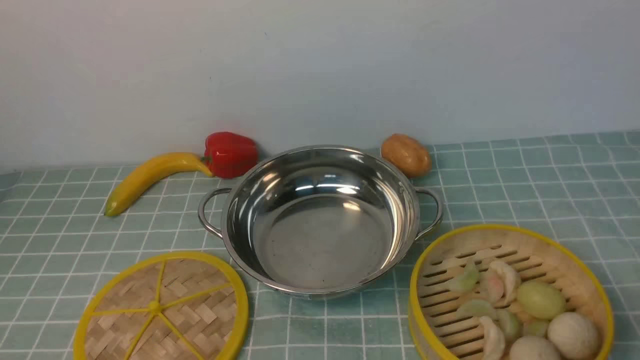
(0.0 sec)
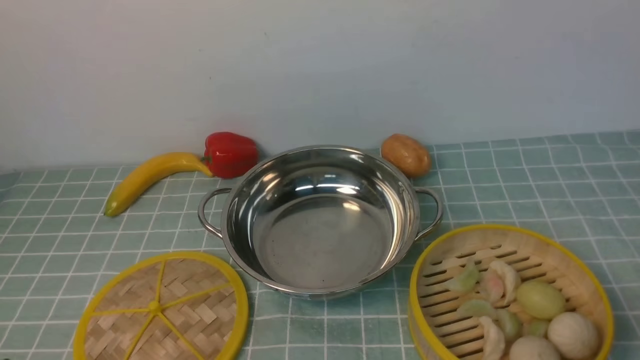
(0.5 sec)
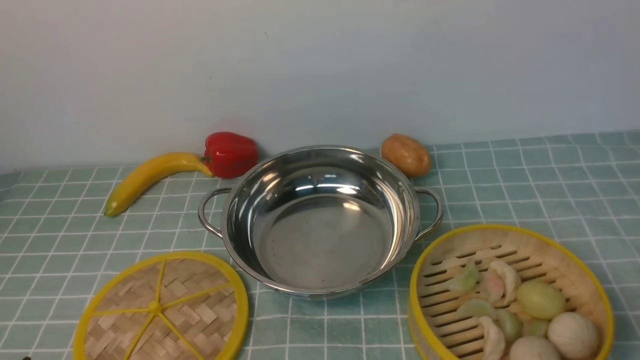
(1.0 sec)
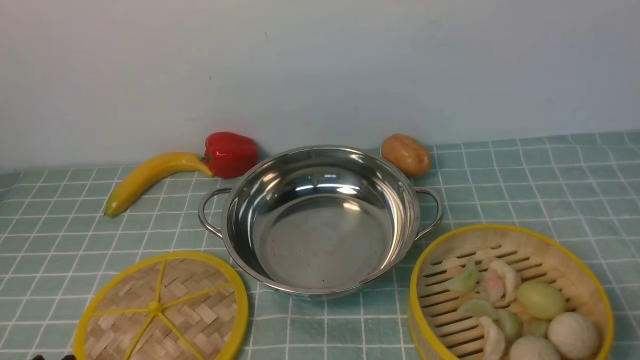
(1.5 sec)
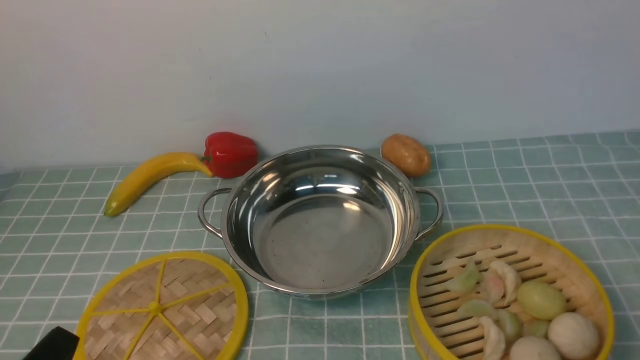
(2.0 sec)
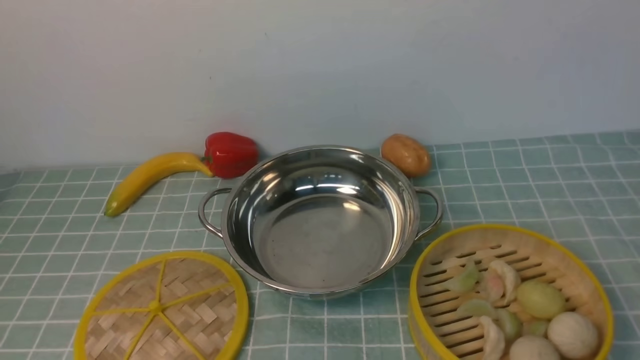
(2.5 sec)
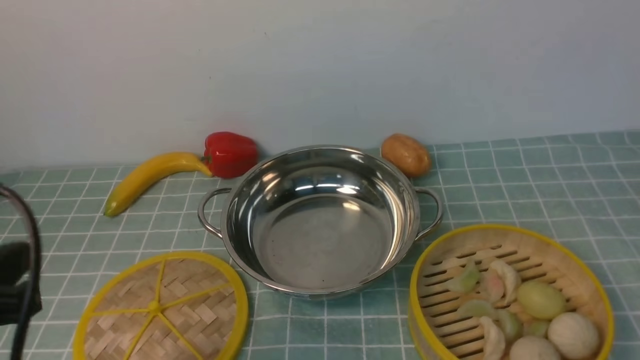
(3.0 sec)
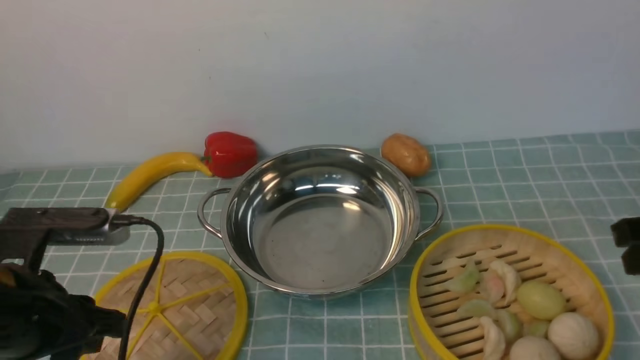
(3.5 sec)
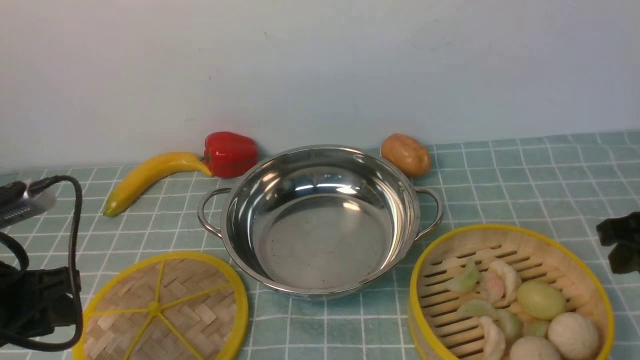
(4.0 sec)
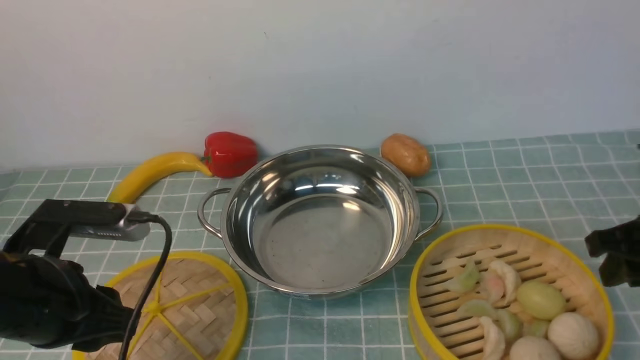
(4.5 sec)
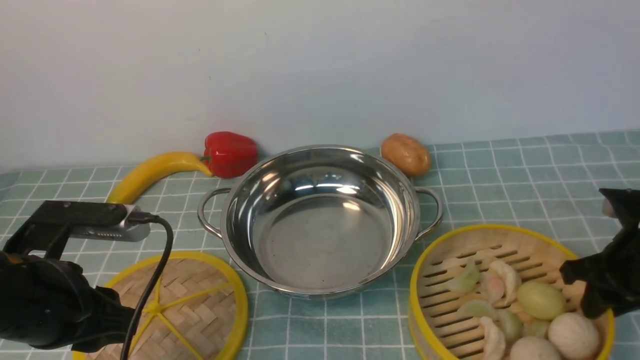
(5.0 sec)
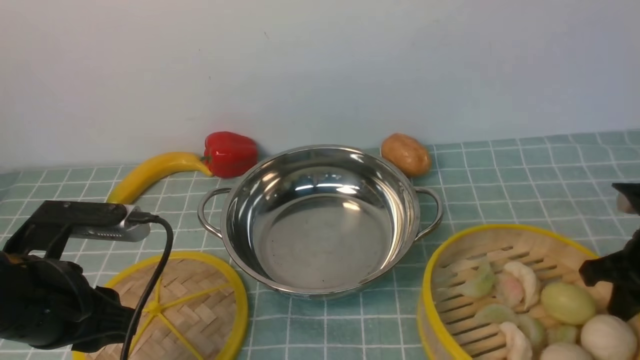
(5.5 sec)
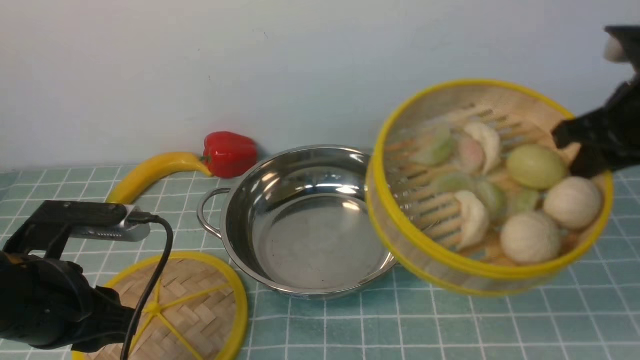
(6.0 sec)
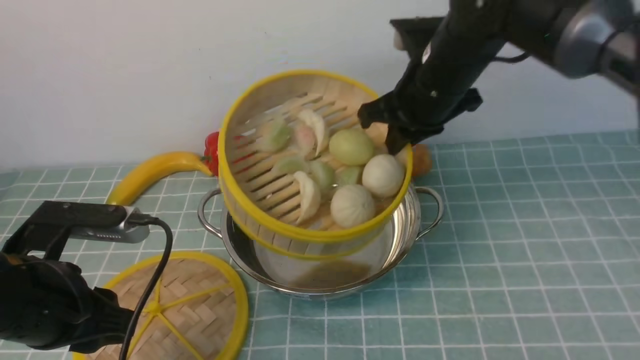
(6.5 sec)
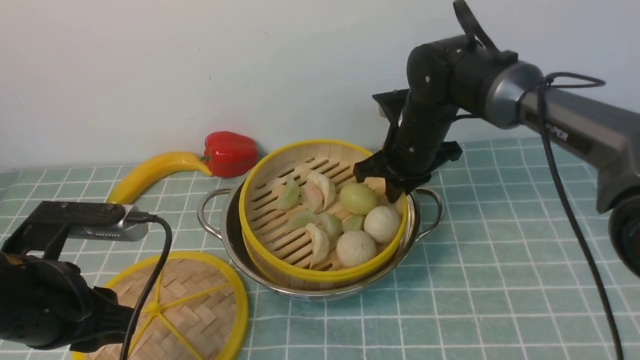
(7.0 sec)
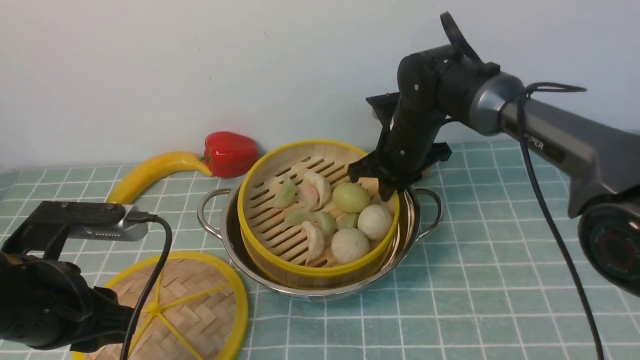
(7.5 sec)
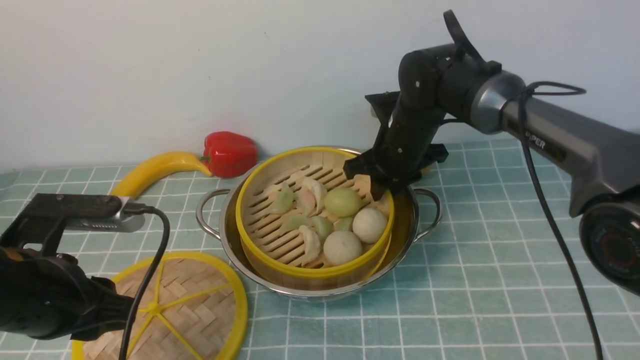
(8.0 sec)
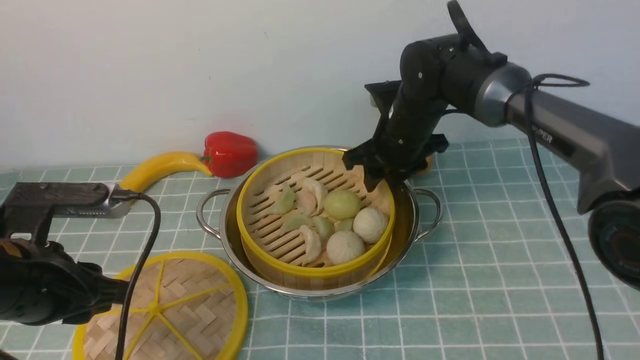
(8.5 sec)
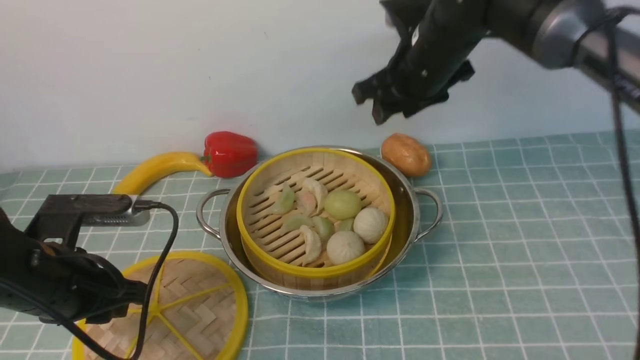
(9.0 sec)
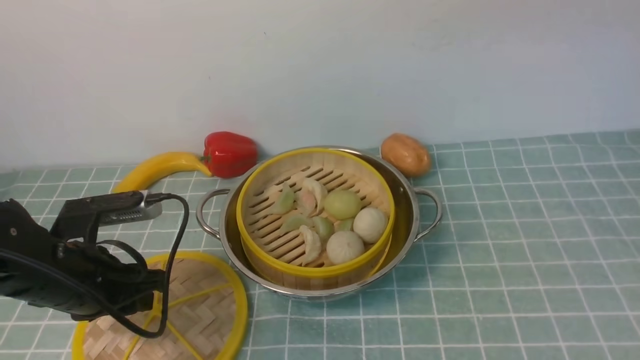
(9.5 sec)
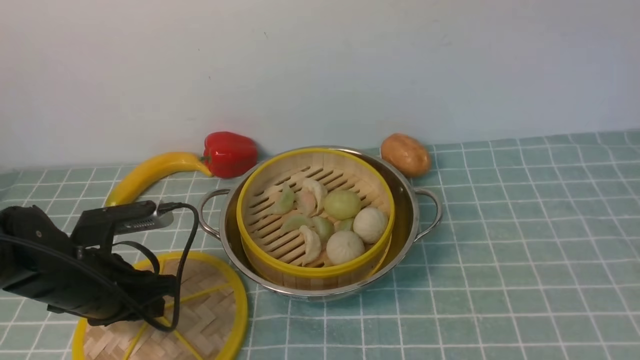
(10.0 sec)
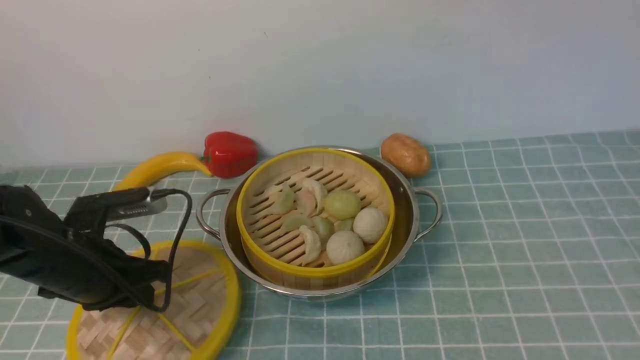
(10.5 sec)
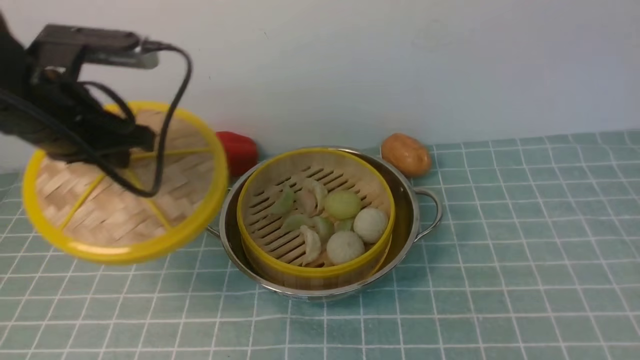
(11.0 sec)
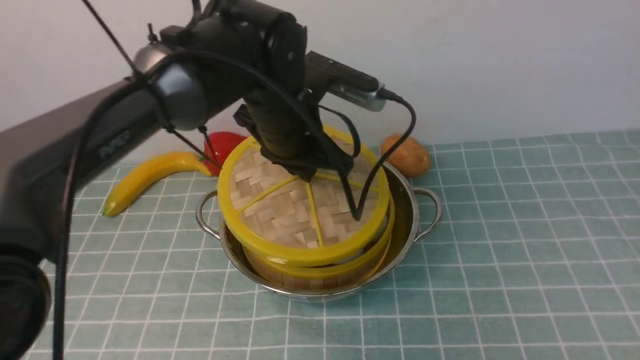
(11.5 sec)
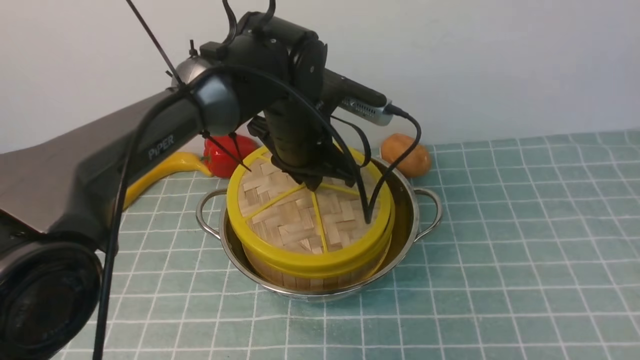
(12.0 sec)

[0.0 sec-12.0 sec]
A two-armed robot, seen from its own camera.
Task of the whole recording: place the steamer in the pot on the blue tablecloth, and put the lid on the steamer.
Step, 0.0 sec to 5.5 sec: use the right arm to lift the steamer closest to it.
Step, 6.0 sec to 8.0 sec: use the right arm to put the steamer into the iron steamer pot in the middle.
Step, 8.5 sec to 10.5 sec: use the left arm to lift the lid of the steamer.
2.0 sec to 4.0 sec: Both grippers move forward, roughly 15 cm.
4.0 sec to 6.0 sec: The right gripper heads forward and upward, covering approximately 5 cm, and closes.
6.0 sec to 8.0 sec: The right gripper moves to the left, forward and downward, roughly 25 cm.
8.0 sec to 10.0 sec: The left gripper travels downward and forward by approximately 10 cm. Meanwhile the right gripper moves upward and backward, roughly 50 cm, and opens its fingers.
10.0 sec to 12.0 sec: The left gripper moves to the right, forward and upward, about 25 cm. Meanwhile the right gripper travels backward and to the right by roughly 10 cm.

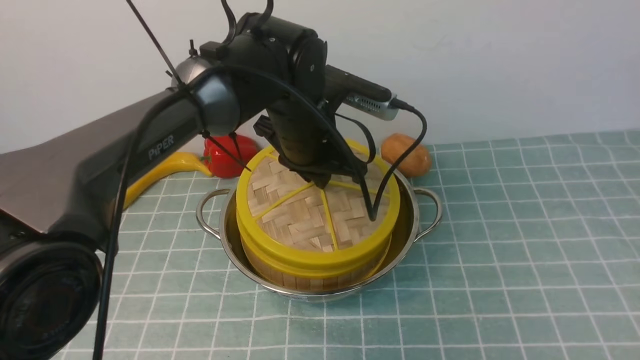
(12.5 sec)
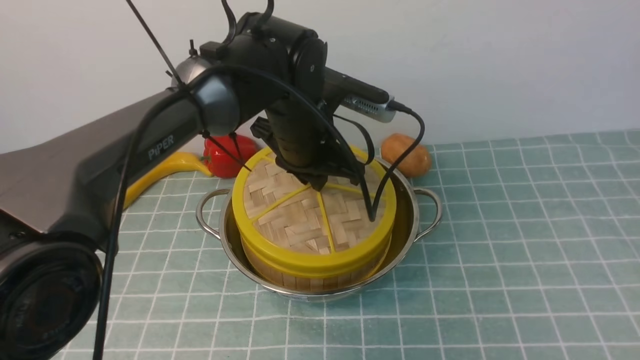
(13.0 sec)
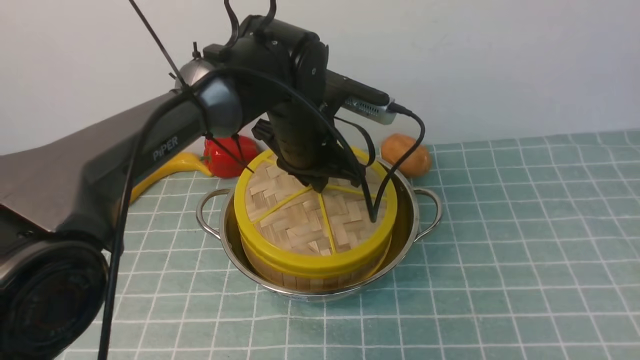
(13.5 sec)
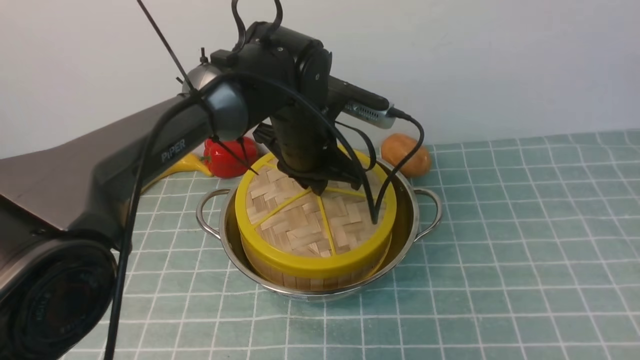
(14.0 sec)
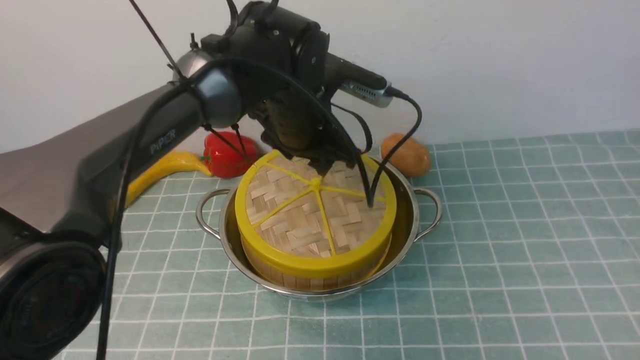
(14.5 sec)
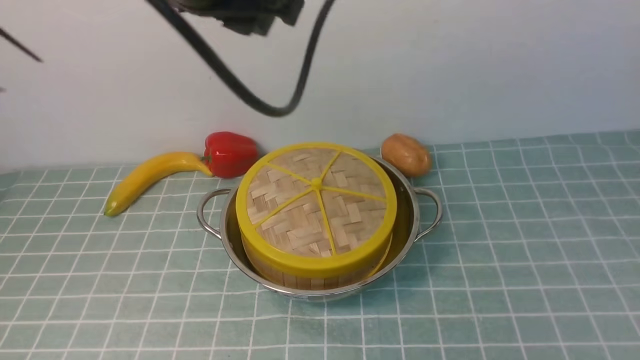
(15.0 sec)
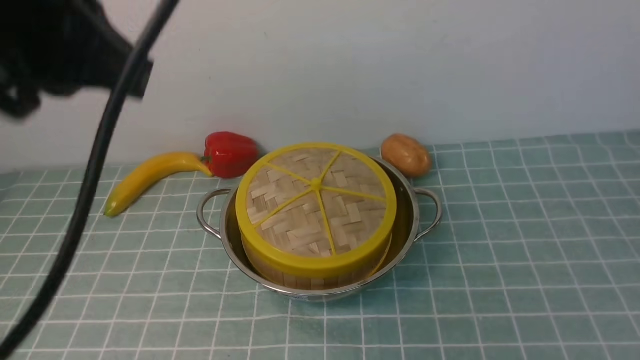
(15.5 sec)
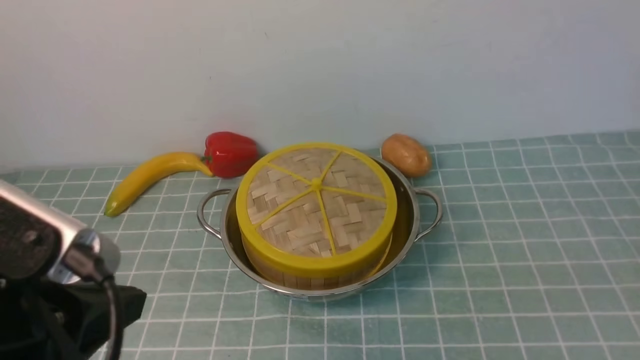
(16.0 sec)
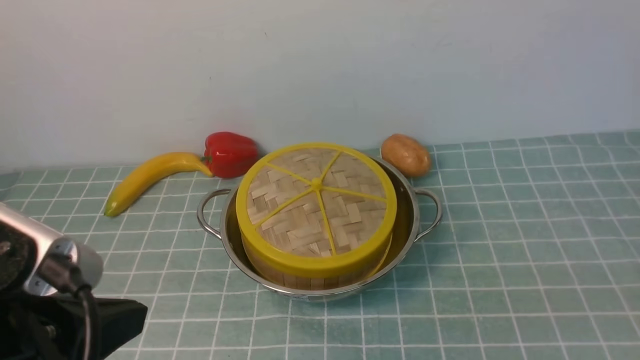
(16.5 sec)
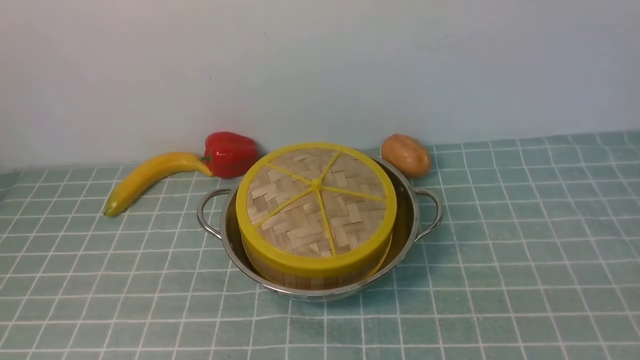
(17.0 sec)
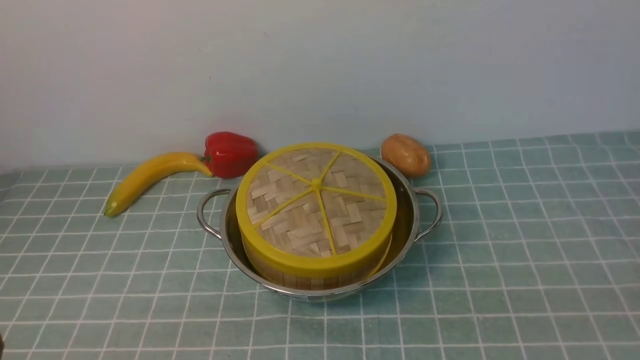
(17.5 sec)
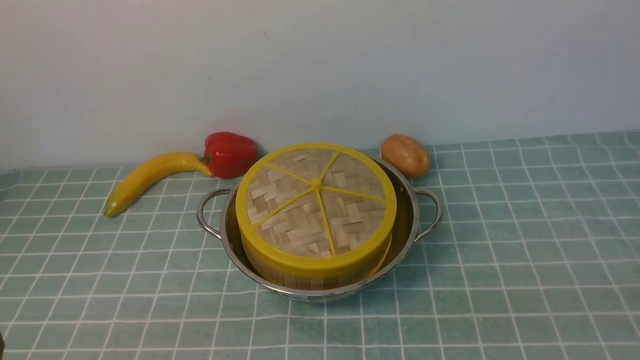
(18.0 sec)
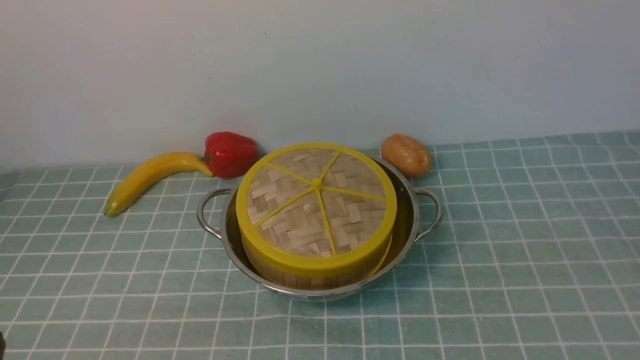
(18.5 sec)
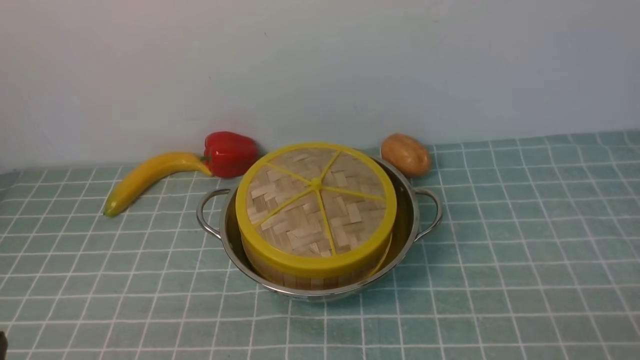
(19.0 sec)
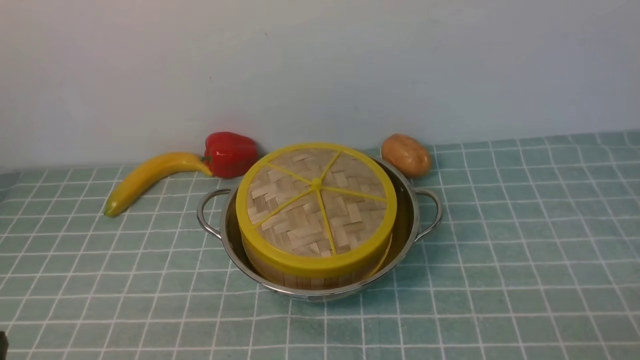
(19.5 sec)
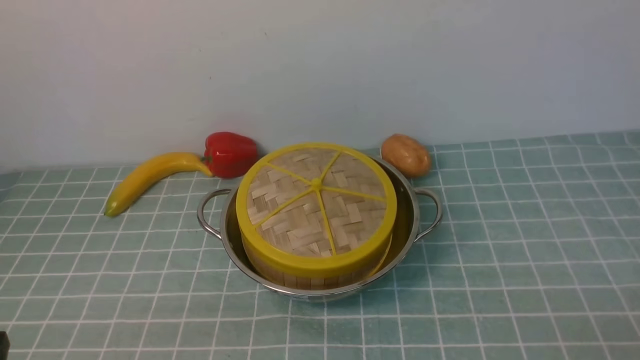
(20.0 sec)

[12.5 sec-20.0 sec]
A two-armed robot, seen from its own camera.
Task of the whole recording: place the steamer in the pot on the blue tablecloth, and put the lid on the steamer.
Step, 12.5 sec to 14.5 sec: use the left arm to place the steamer lid on the steamer.
12.5 sec to 14.5 sec: The left gripper opens.
14.5 sec to 16.5 sec: The left gripper moves backward and to the left, about 35 cm, and closes its fingers; the right gripper shifts roughly 25 cm downward and backward, and closes its fingers.
16.5 sec to 18.0 sec: The left gripper heads downward and to the left, covering some 15 cm.
